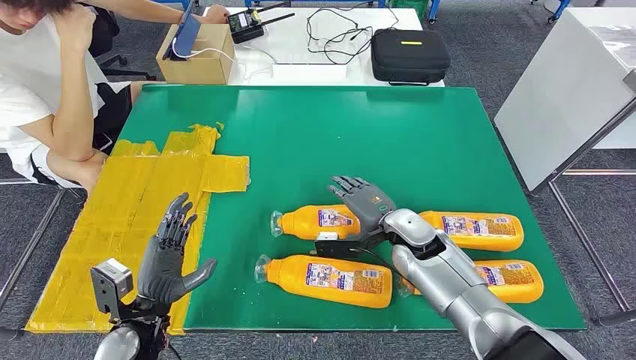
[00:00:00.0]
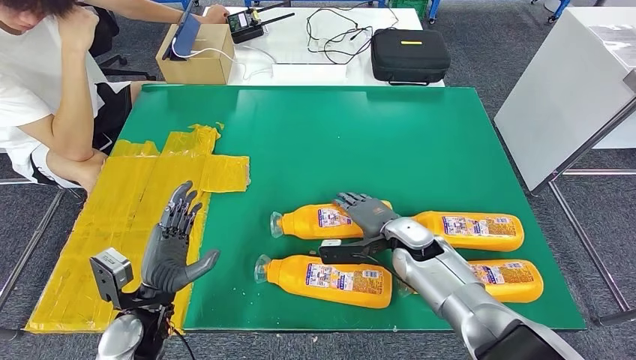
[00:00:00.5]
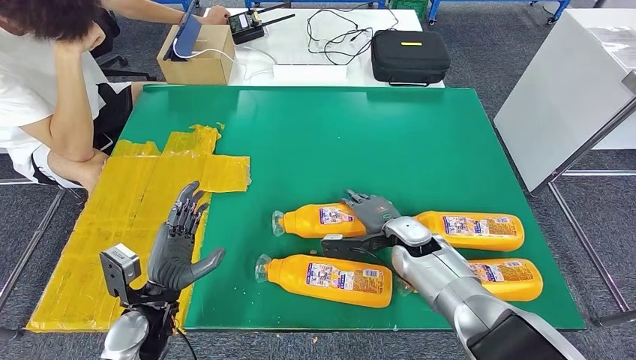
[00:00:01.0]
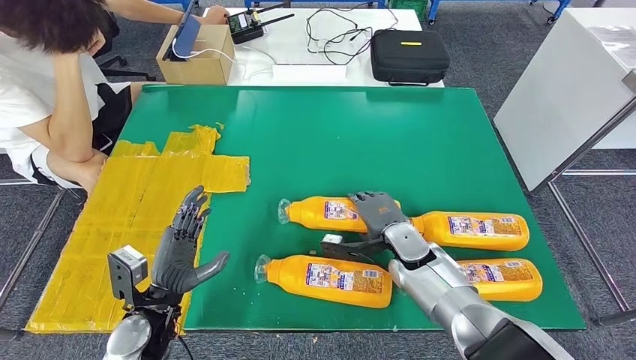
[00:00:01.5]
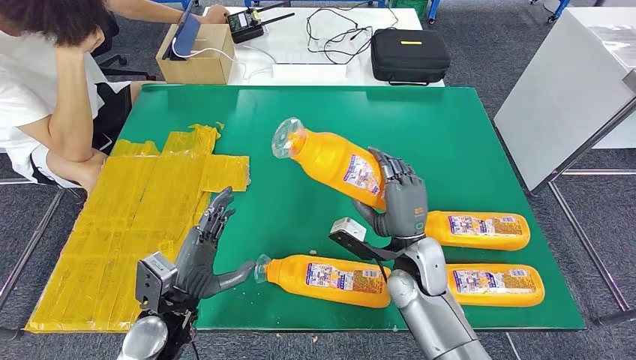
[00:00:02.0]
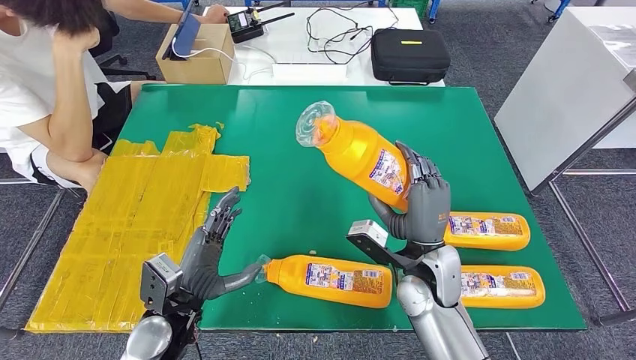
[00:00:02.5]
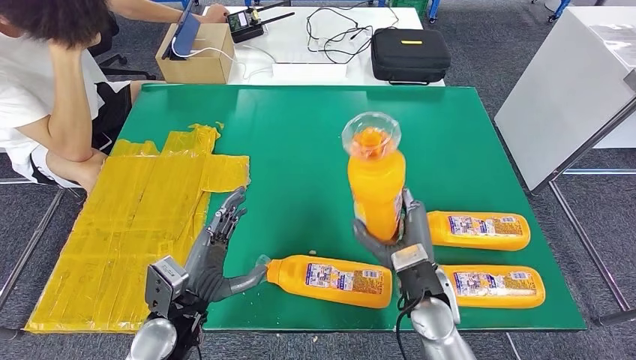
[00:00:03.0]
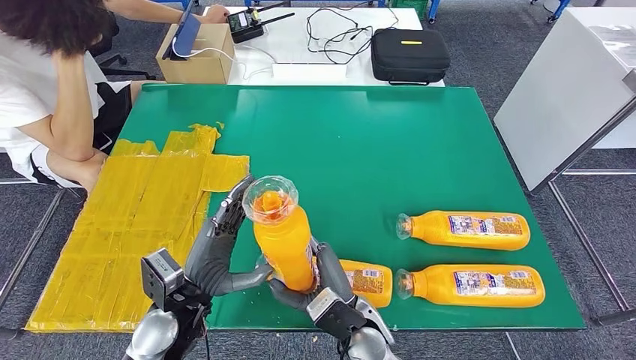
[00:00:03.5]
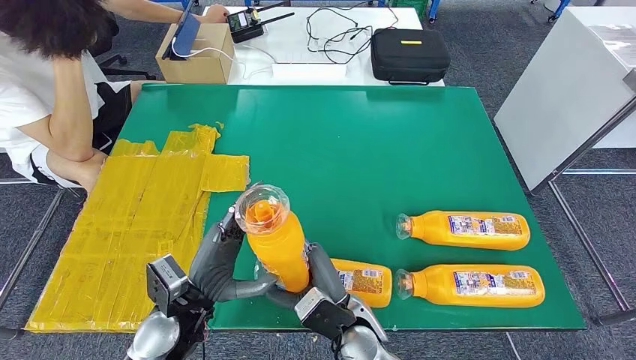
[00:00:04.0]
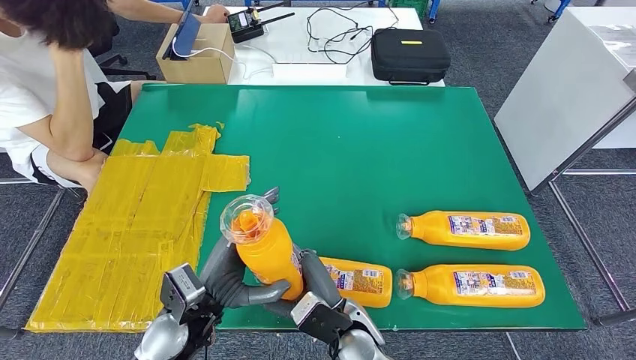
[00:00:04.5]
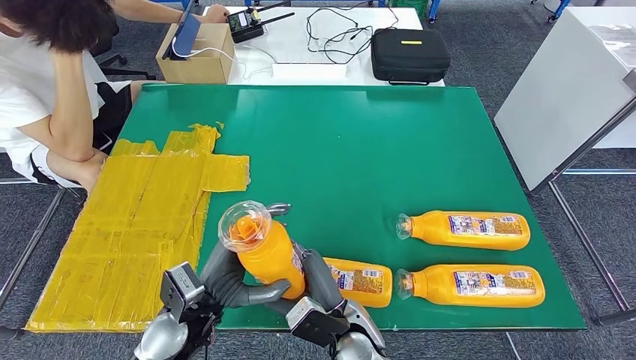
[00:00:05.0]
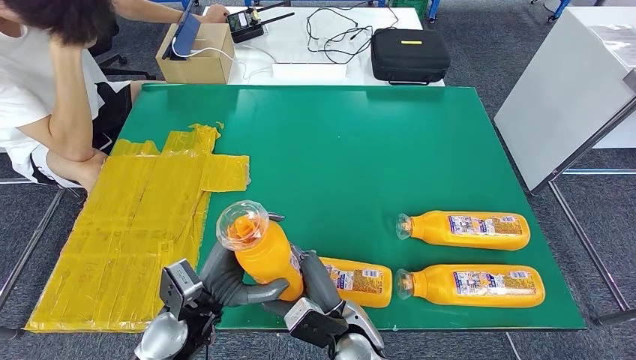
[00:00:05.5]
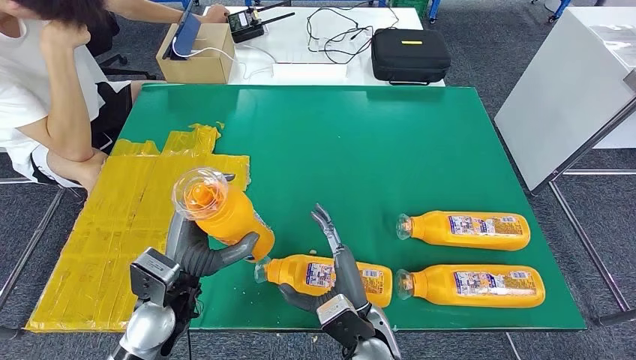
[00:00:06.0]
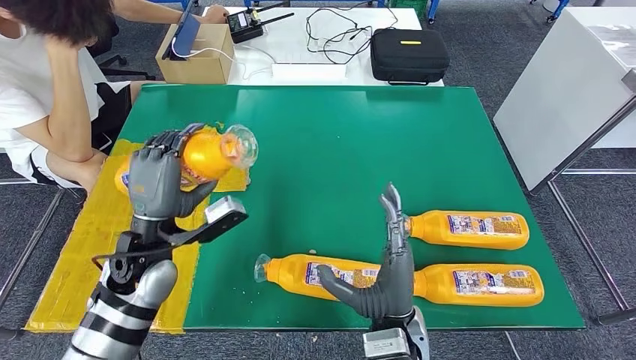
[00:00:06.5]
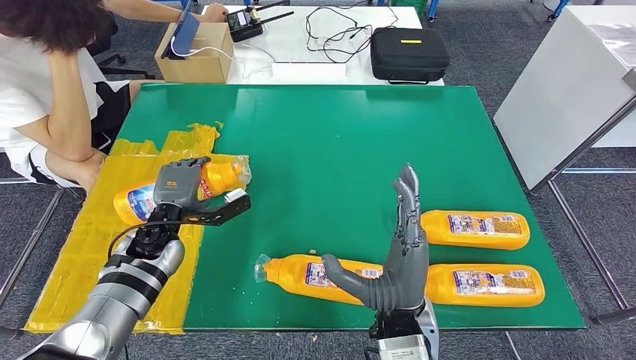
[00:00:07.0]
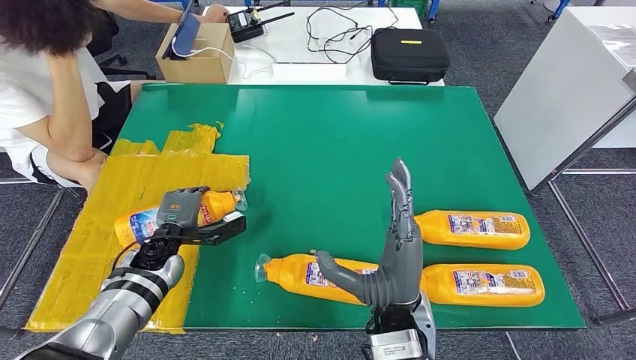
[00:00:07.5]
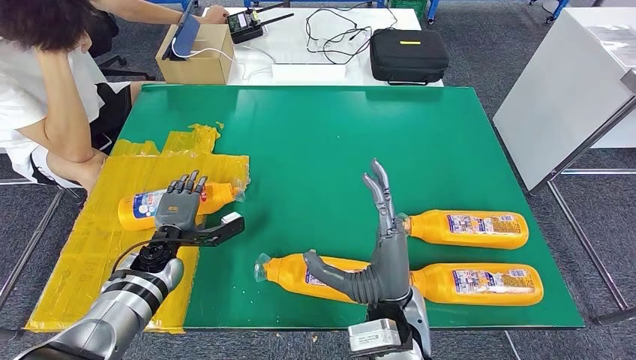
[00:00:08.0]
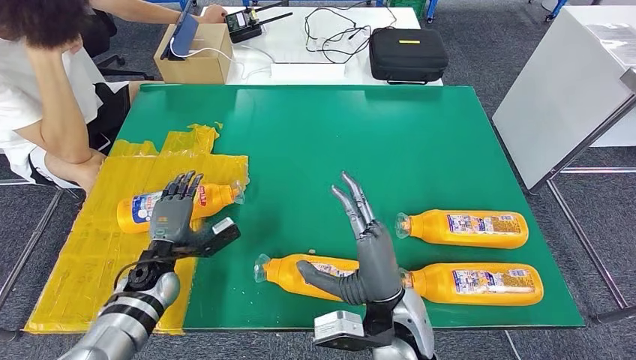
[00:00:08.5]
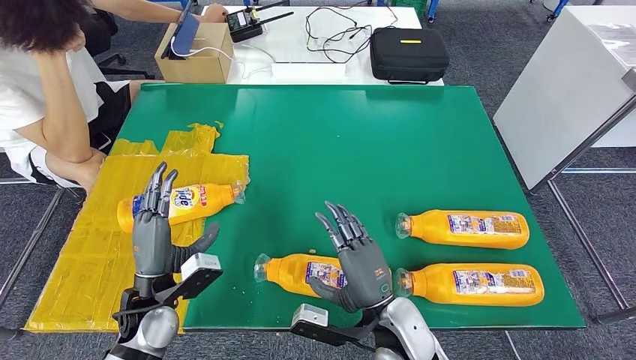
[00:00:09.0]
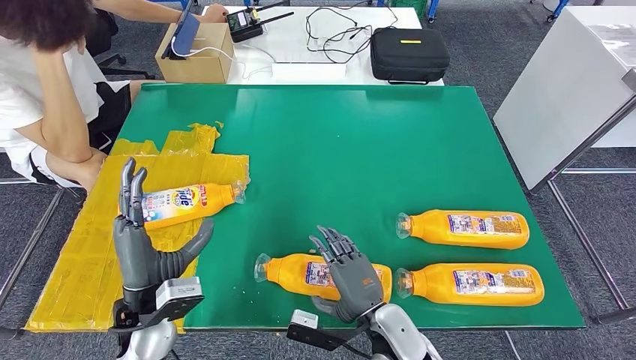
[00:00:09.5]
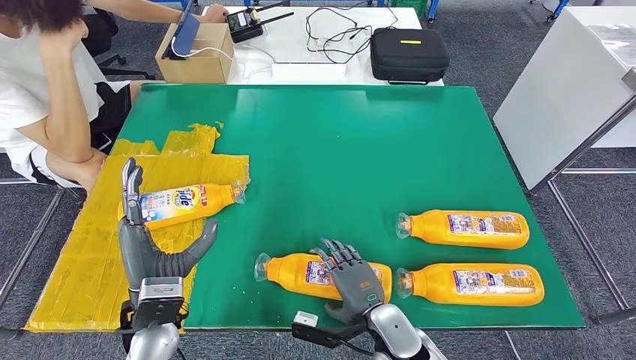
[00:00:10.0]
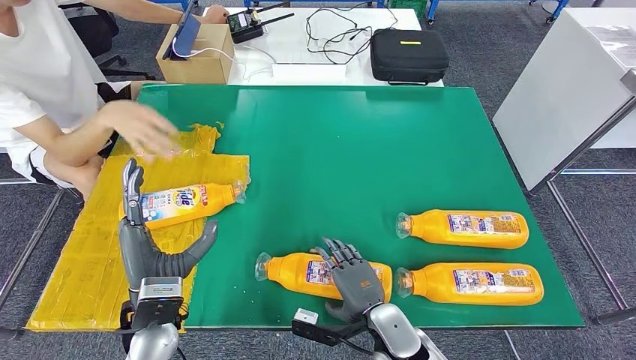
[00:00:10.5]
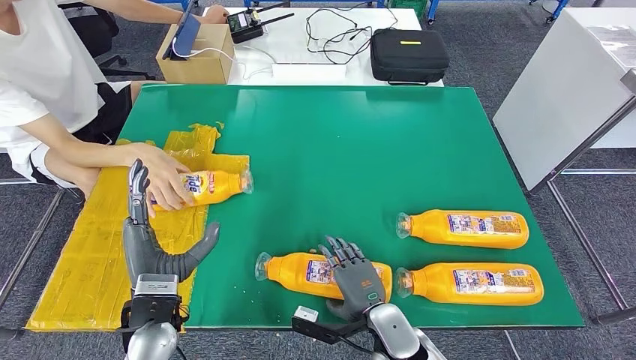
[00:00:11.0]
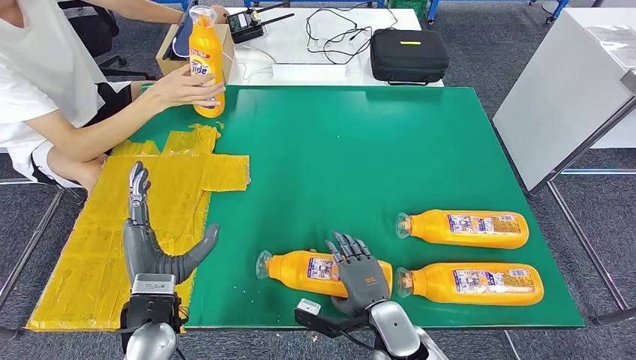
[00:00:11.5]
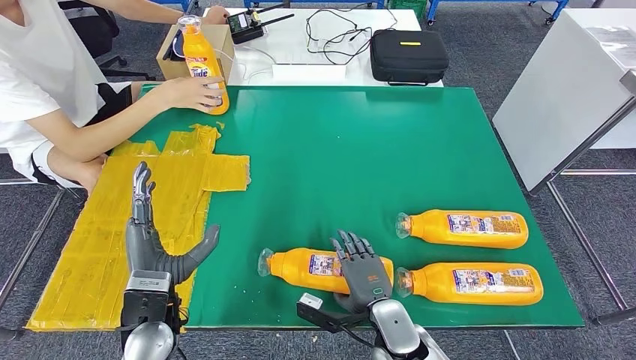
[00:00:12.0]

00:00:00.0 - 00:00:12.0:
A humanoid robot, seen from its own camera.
Step, 00:00:00.0 - 00:00:03.0: Take the fast-moving consumer goods bottle from the table.
Step, 00:00:05.0 - 00:00:09.0: Flip the fast-moving consumer goods bottle to the front side.
00:00:02.0 - 00:00:04.0: The right hand is displaced to the left and backward by roughly 15 cm.
00:00:06.0 - 00:00:08.0: The right hand shifts approximately 10 cm upward, while the left hand is displaced forward, downward and to the left by about 15 cm.
00:00:08.0 - 00:00:10.0: The left hand is displaced backward, upward and to the right by some 20 cm; the right hand is displaced downward by some 15 cm.
00:00:10.0 - 00:00:12.0: The hands make only small movements.

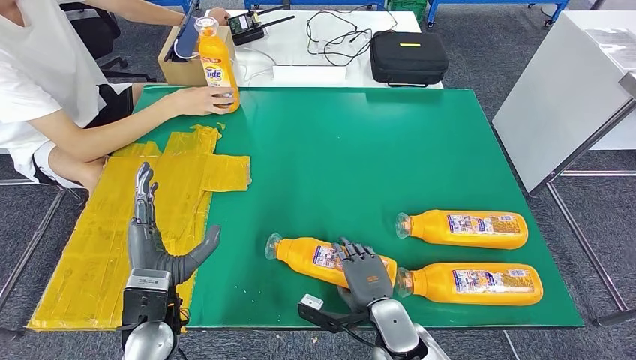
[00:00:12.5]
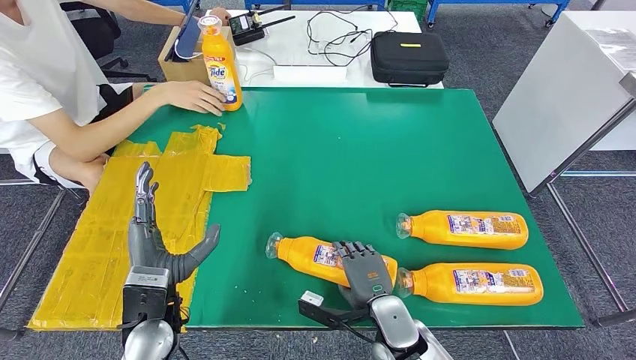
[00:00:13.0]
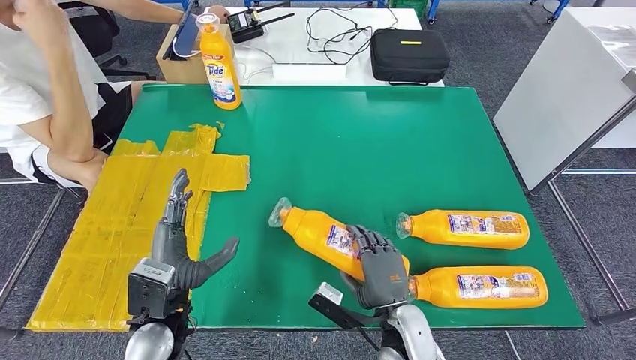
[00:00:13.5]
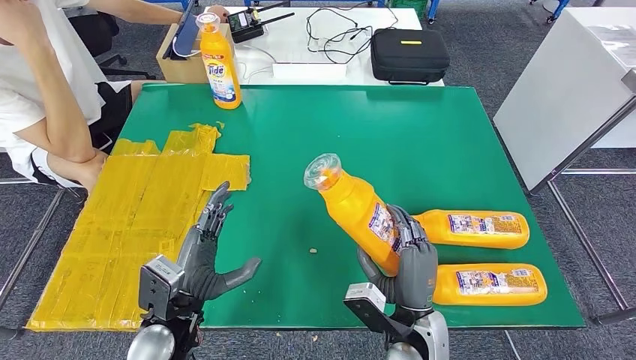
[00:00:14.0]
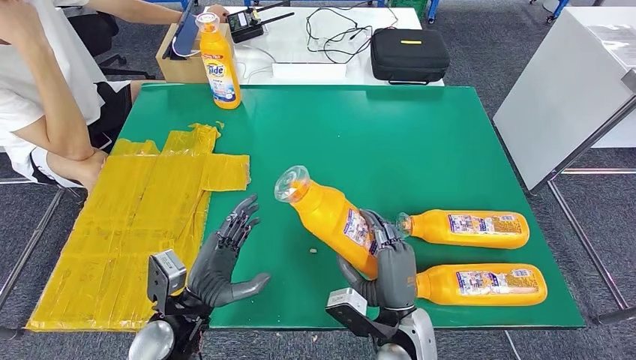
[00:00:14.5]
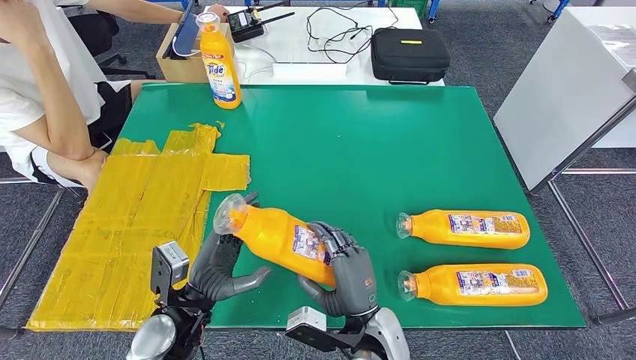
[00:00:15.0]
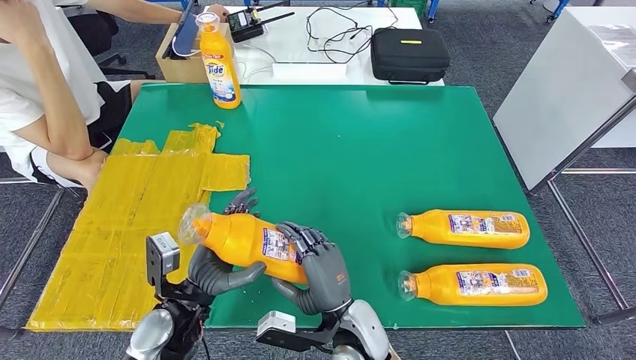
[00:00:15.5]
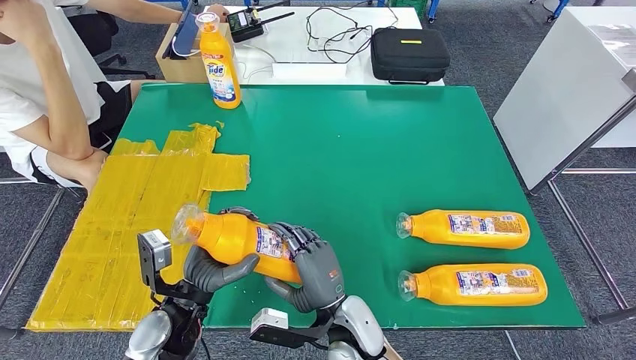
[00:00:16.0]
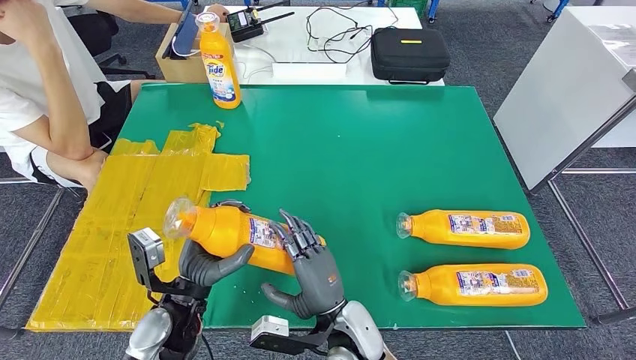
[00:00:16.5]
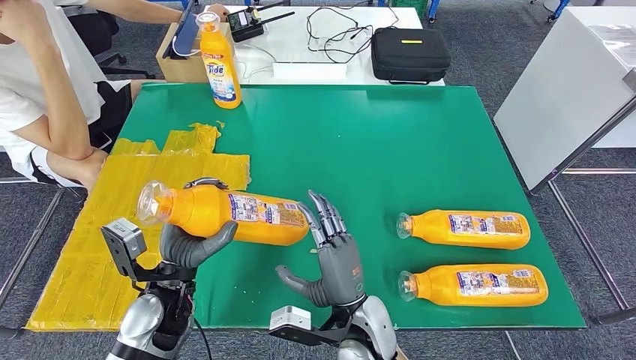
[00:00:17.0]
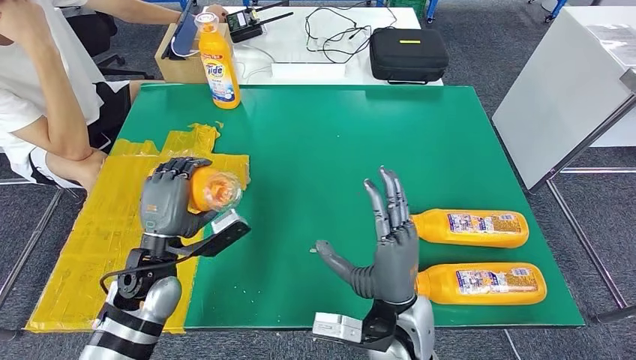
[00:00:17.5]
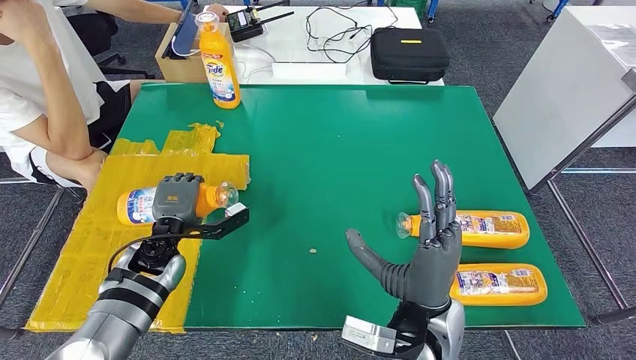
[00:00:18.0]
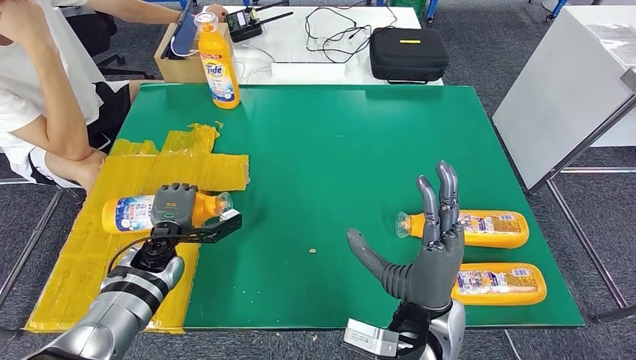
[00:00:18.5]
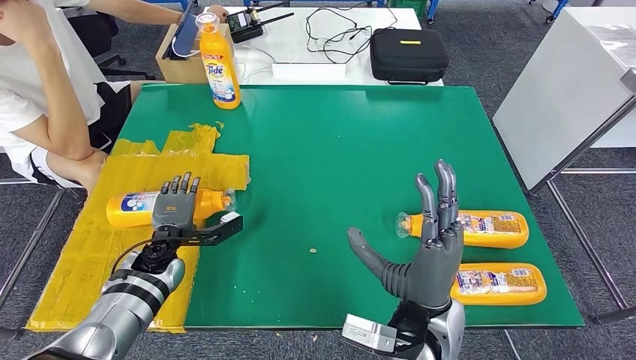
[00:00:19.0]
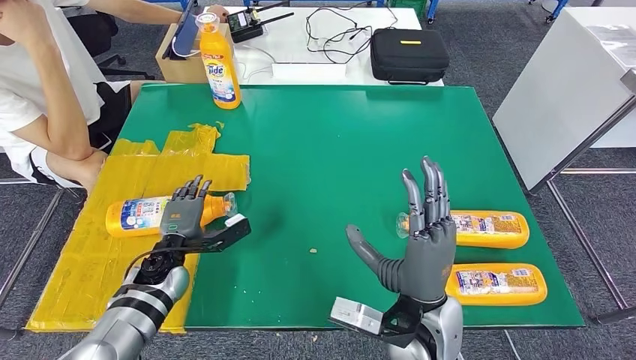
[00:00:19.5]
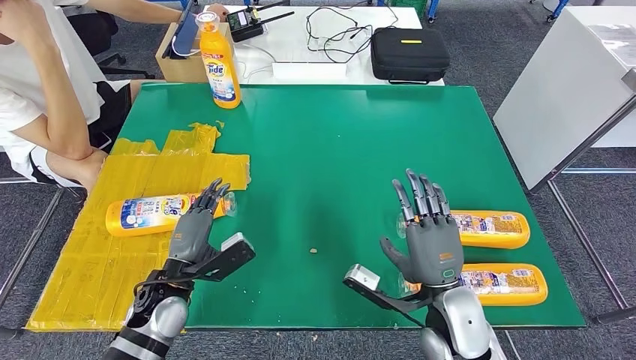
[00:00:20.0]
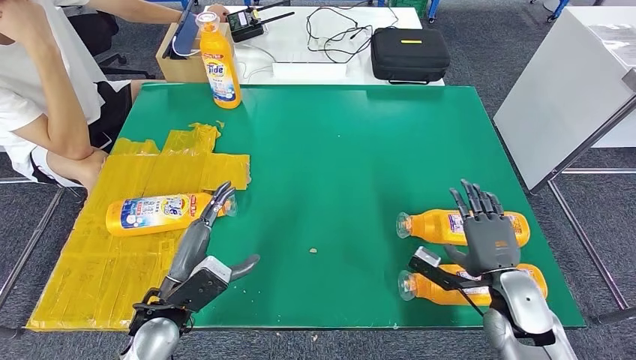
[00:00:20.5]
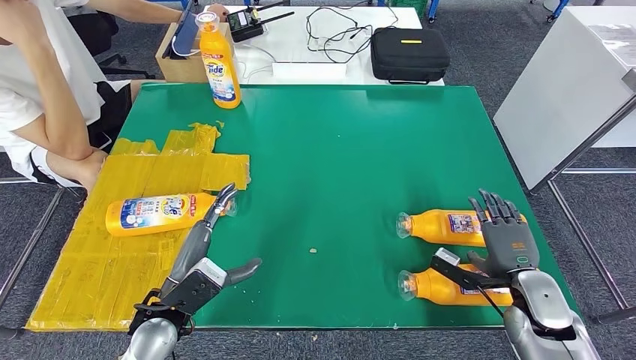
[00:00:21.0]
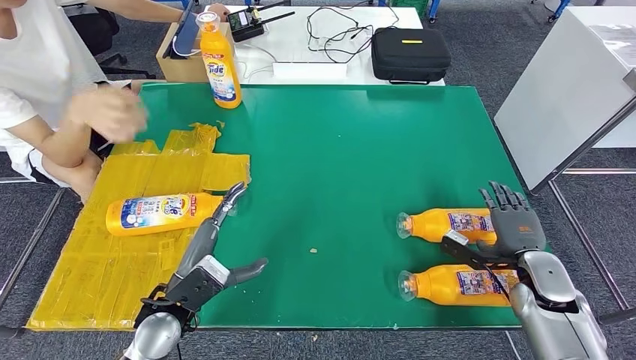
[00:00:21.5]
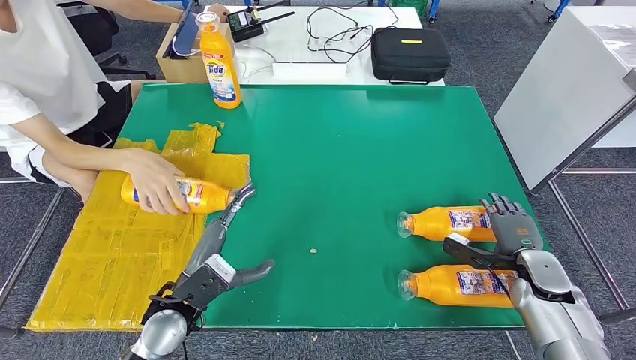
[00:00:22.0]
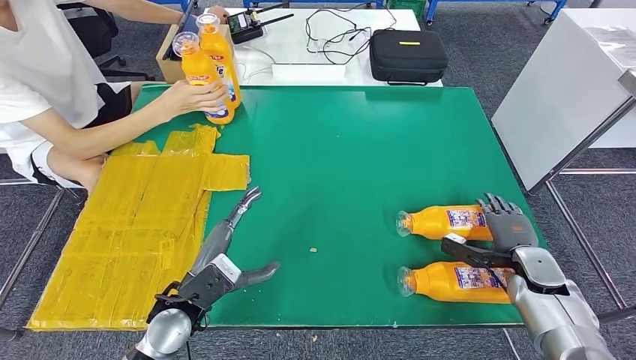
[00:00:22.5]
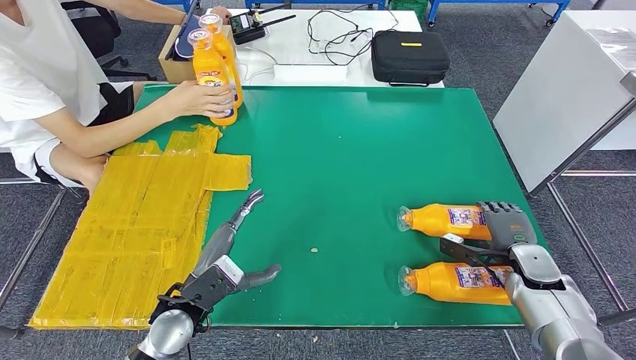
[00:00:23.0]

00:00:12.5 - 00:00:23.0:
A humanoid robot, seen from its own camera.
Step, 00:00:12.5 - 00:00:14.0: Pick up the fast-moving consumer goods bottle from the table.
Step, 00:00:16.0 - 00:00:19.5: Flip the fast-moving consumer goods bottle to the front side.
00:00:14.5 - 00:00:16.5: The right hand travels to the left by roughly 10 cm.
00:00:16.5 - 00:00:19.0: The left hand goes roughly 15 cm forward and to the left, while the right hand is displaced upward and to the right by roughly 15 cm.
00:00:19.0 - 00:00:21.0: The right hand shifts roughly 25 cm to the right. Meanwhile the left hand travels backward, to the right and upward by some 15 cm.
